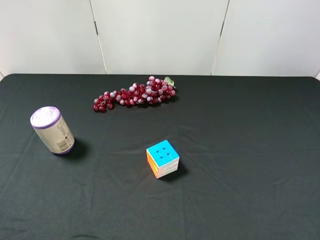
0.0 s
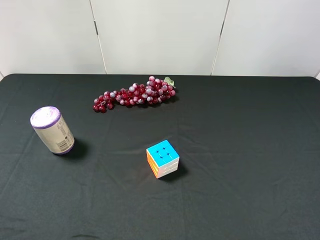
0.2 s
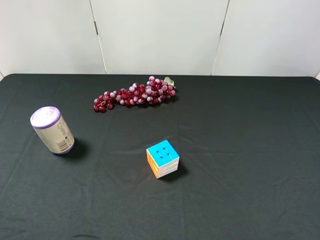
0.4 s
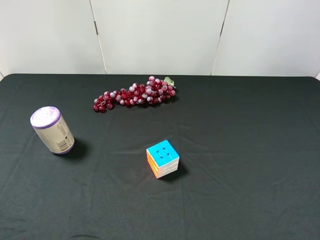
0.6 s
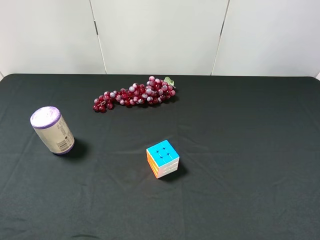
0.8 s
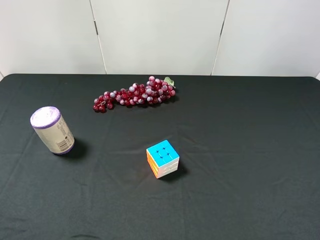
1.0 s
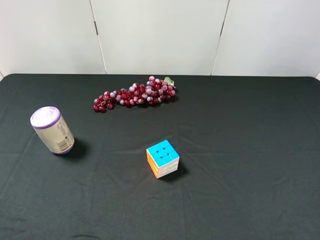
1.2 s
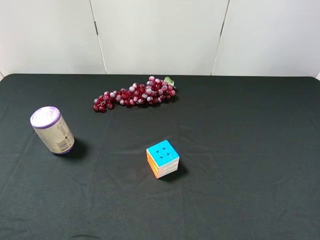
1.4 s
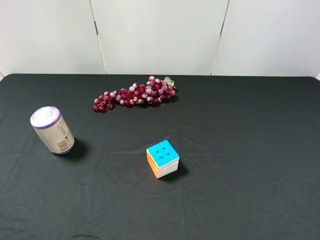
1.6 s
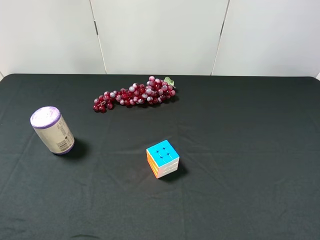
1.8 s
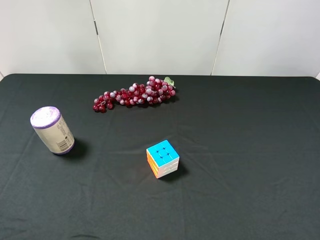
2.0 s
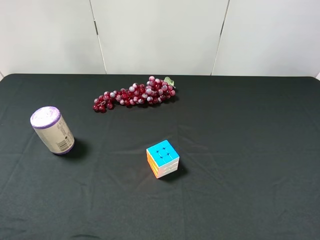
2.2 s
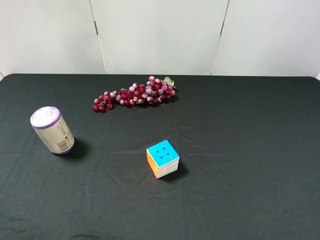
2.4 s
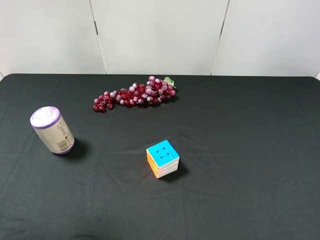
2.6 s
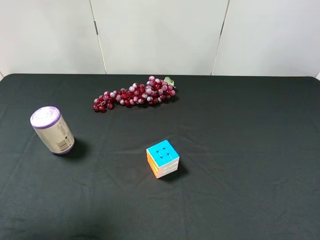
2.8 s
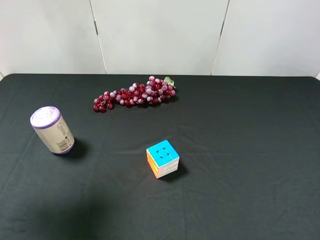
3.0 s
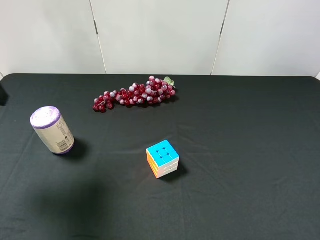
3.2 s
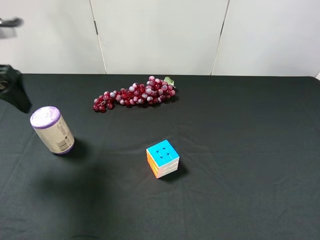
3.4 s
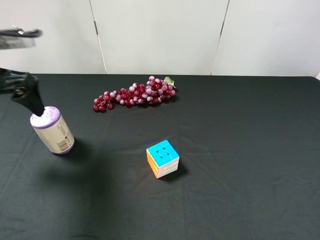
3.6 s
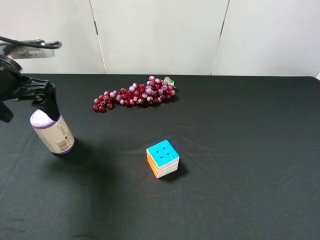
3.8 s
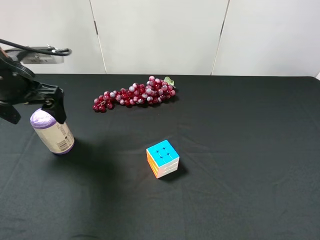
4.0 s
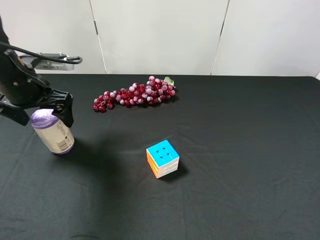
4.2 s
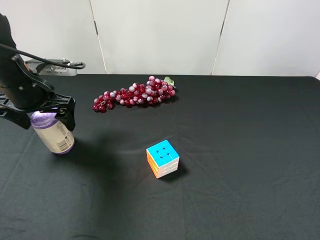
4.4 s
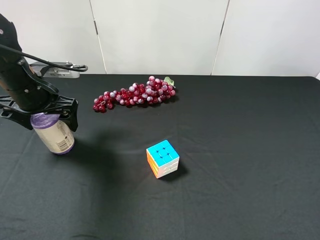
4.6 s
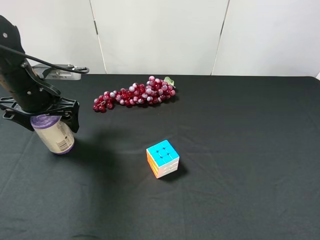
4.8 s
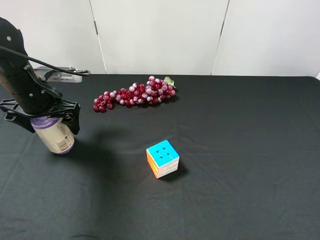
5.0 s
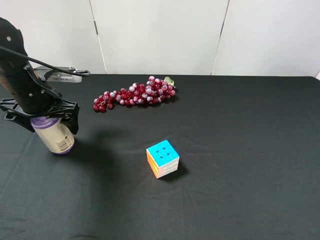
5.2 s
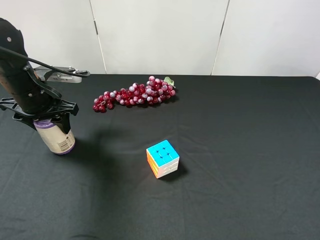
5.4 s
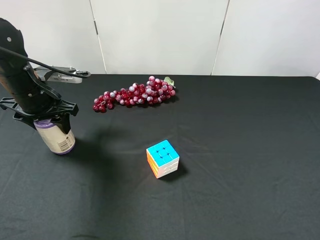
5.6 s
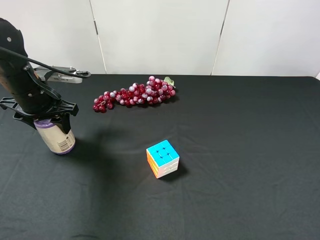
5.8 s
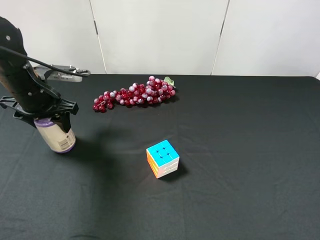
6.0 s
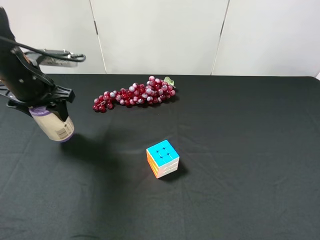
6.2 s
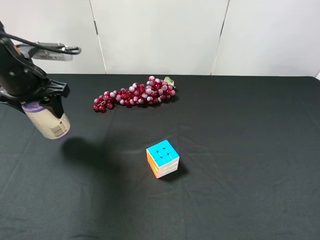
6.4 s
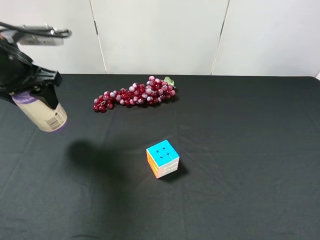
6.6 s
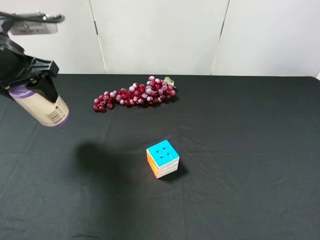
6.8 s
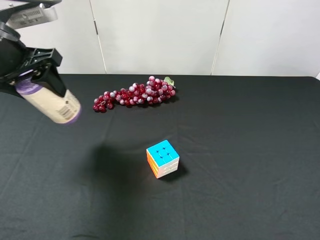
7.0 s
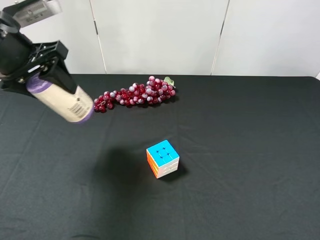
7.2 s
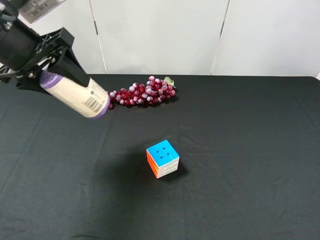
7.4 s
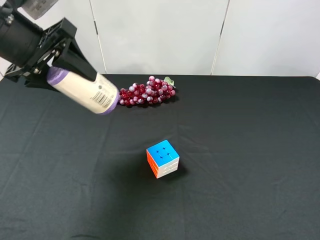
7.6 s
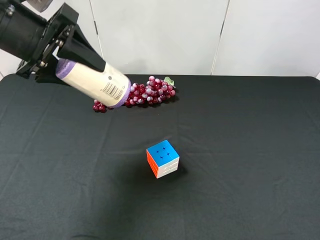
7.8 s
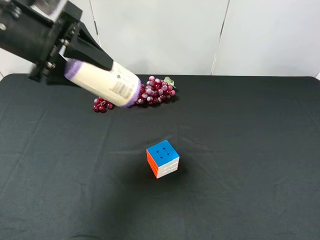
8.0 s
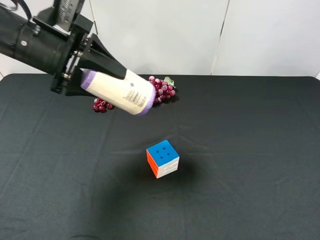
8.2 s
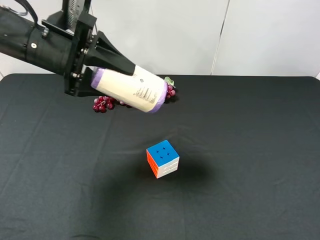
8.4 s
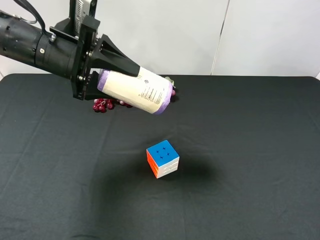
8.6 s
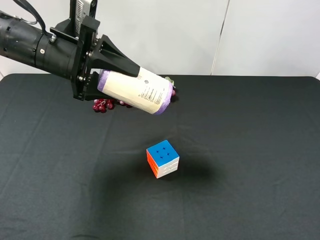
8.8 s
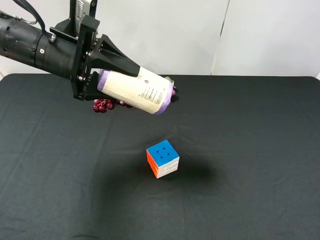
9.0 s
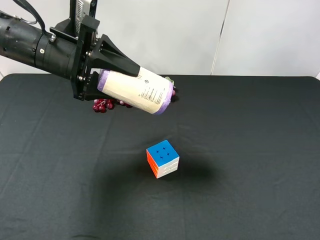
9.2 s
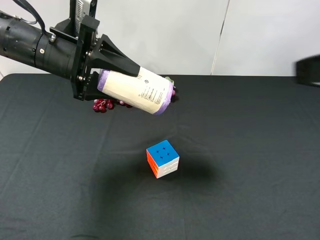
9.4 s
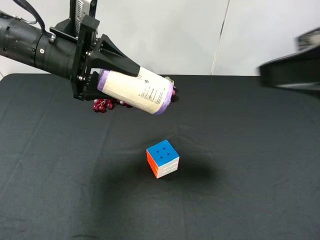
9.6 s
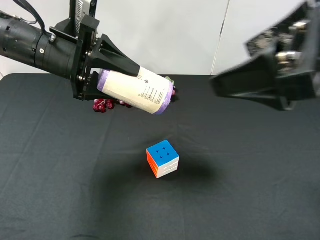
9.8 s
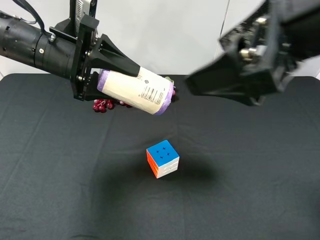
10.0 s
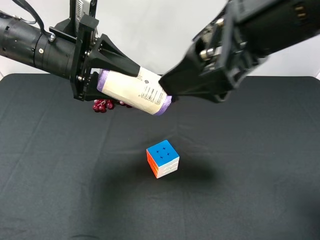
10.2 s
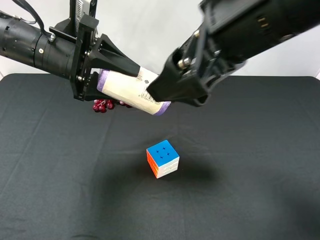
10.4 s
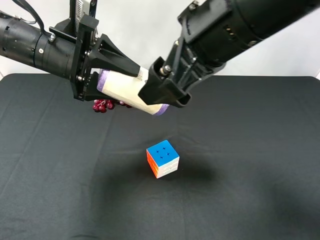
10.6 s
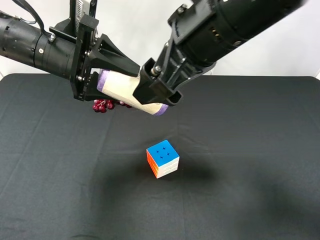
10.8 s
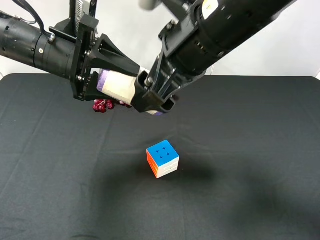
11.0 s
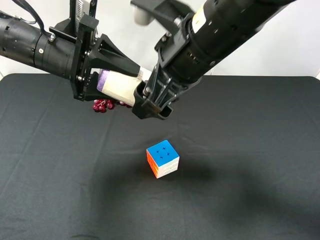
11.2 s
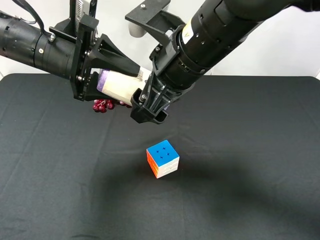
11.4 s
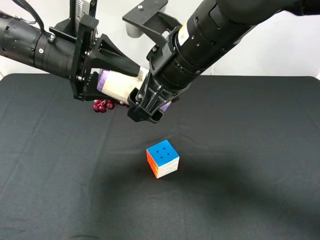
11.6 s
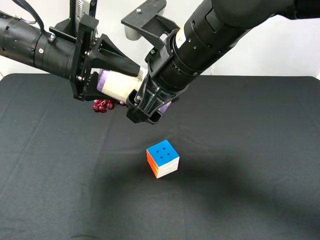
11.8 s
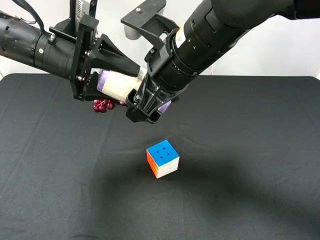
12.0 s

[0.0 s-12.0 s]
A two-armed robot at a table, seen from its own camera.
Task of the whole recording: use the left gripper to pick up the item and transfer it from the left gripper to the right gripper.
0.0 to 1.6 s: Both grippers stay put.
1.6 to 3.0 s: The left gripper goes about 20 cm forward.
3.0 to 4.4 s: The left gripper heads downward, forward and to the right, covering approximately 20 cm.
4.4 to 6.0 s: The left gripper closes its fingers.
6.0 to 7.6 s: The left gripper travels upward by roughly 10 cm.
7.6 to 9.0 s: The right gripper goes some 10 cm upward and forward. Meanwhile the left gripper goes approximately 5 cm downward.
9.0 to 10.4 s: The right gripper moves to the left and forward, roughly 20 cm.
10.4 to 12.0 s: The right gripper is displaced downward, to the left and forward by about 10 cm.

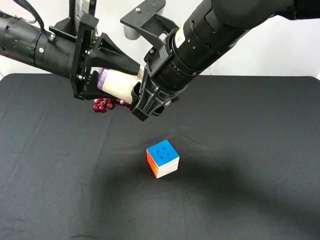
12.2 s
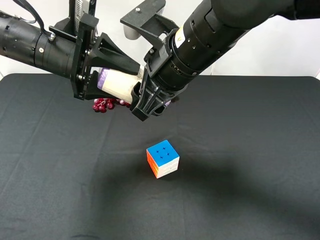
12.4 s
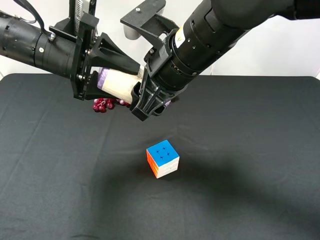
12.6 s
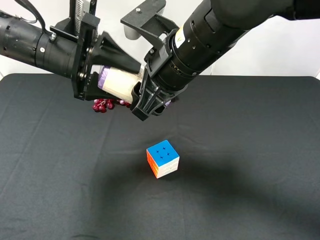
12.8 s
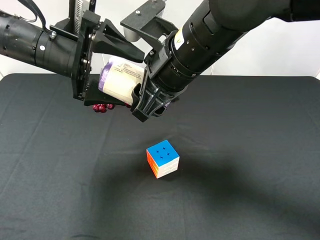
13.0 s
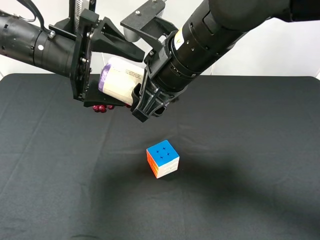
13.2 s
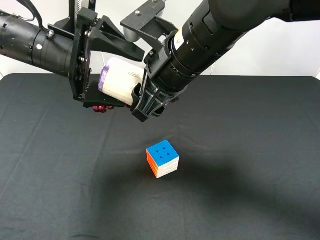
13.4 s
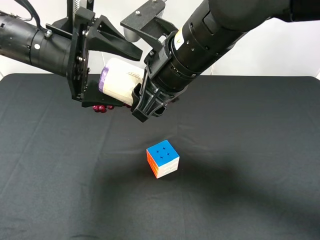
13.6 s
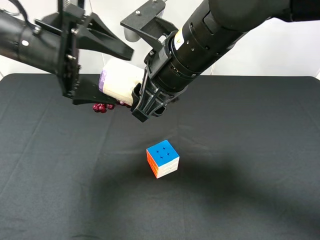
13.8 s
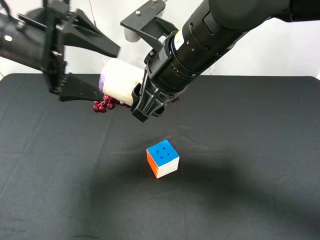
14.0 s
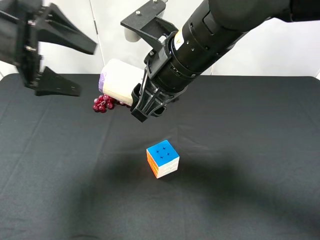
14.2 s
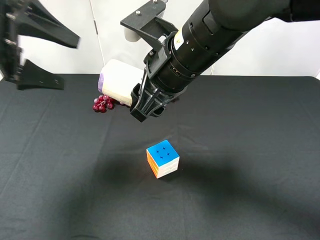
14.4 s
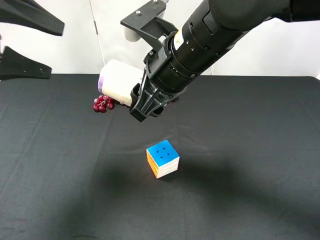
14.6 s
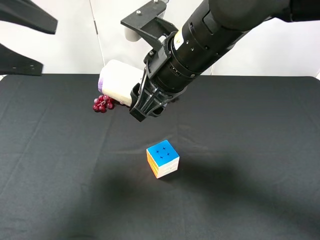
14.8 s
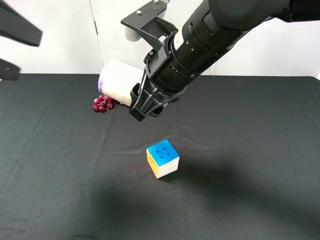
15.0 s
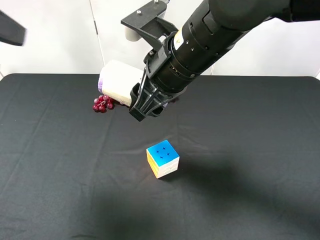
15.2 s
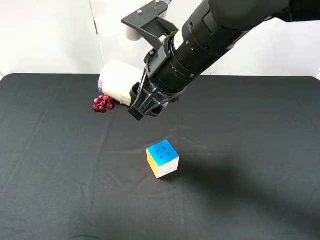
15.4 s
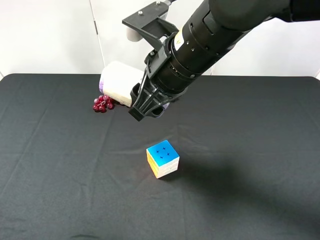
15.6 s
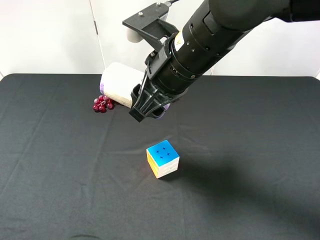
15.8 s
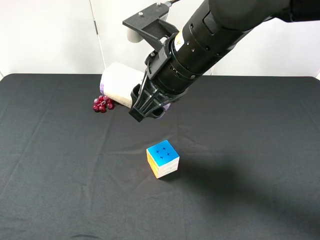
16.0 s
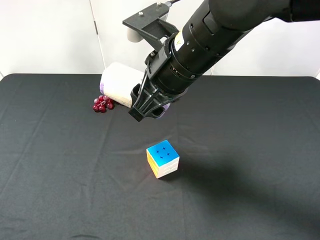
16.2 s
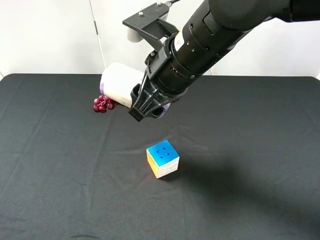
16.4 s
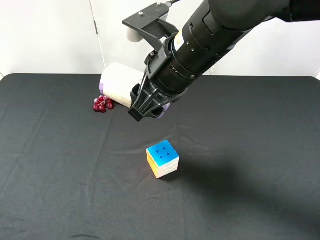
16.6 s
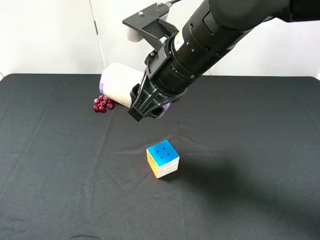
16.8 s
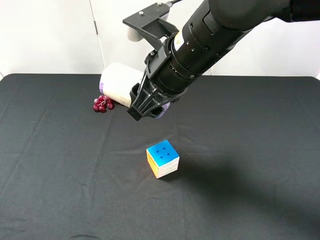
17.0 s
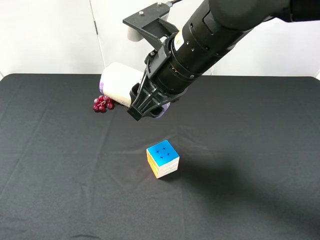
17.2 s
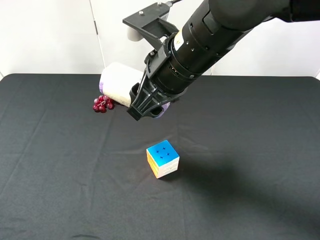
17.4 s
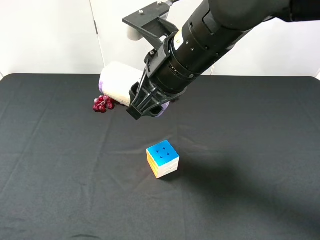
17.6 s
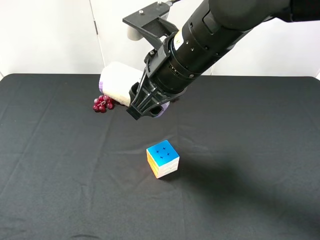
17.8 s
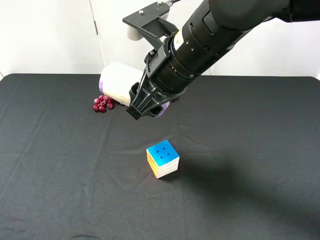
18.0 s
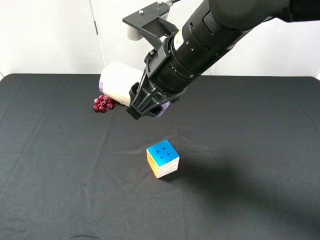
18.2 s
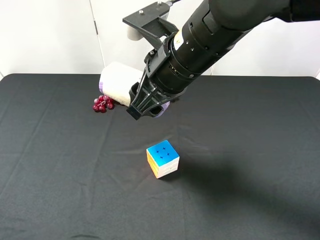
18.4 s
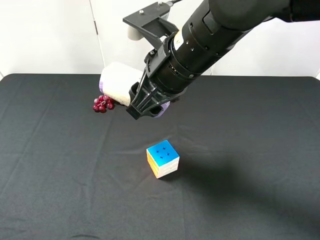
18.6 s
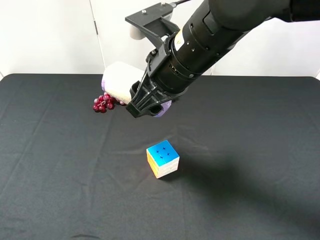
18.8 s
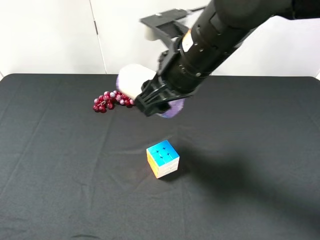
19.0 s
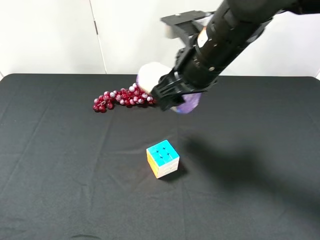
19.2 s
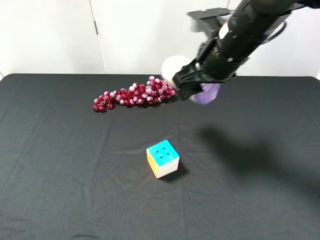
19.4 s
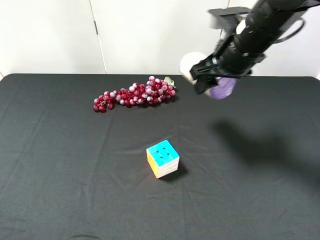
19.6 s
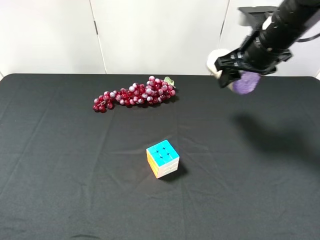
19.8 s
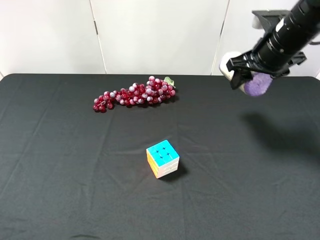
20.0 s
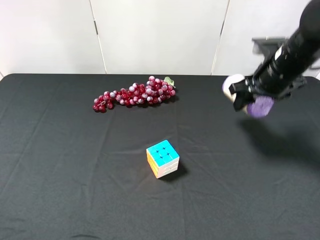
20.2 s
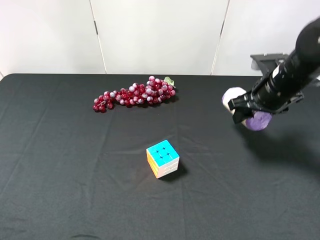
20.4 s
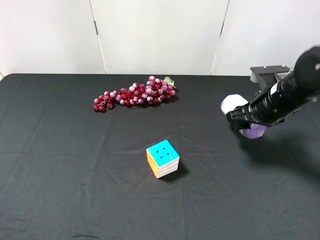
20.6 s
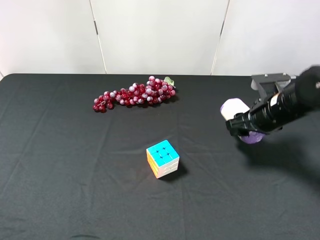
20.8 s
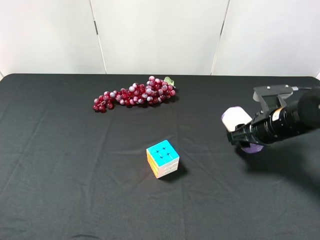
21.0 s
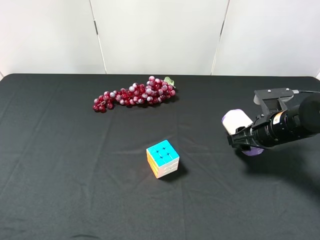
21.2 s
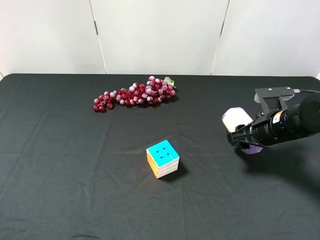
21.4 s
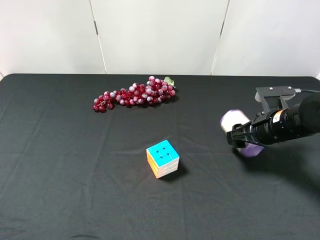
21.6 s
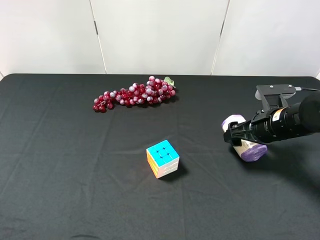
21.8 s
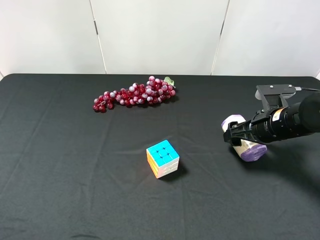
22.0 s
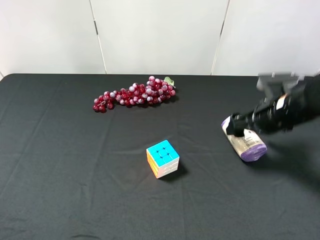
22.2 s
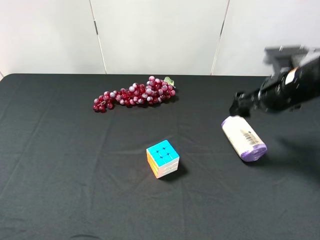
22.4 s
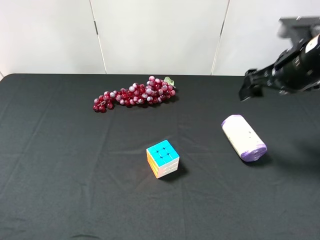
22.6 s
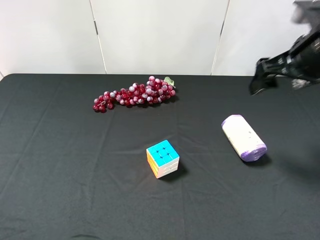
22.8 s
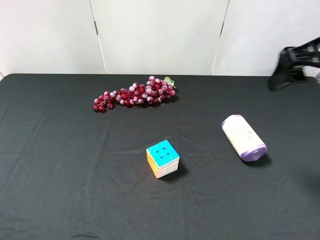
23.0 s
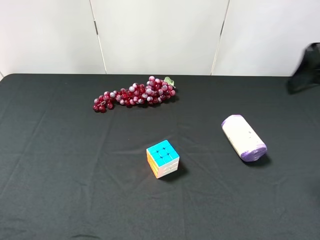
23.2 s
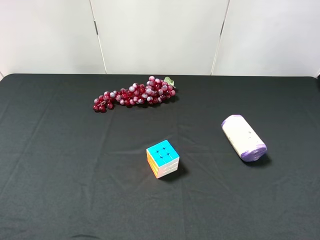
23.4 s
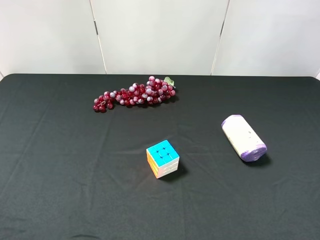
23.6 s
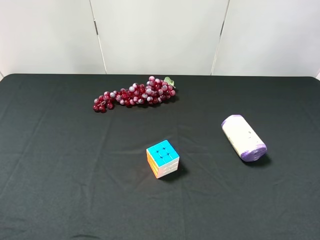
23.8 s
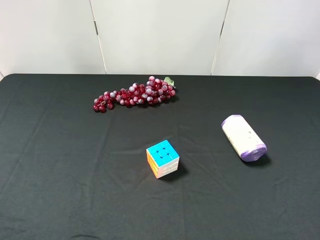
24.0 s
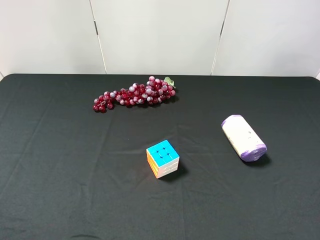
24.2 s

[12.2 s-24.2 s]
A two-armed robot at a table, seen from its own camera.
Task of the whole recording: use the left gripper to pick up the item and transfer it from the left gripper to the right gripper.
12.2 to 13.8 s: The left gripper opens.
13.8 to 15.2 s: The left gripper shifts roughly 20 cm upward, backward and to the left.
15.2 to 16.6 s: The left gripper goes approximately 15 cm backward.
16.6 to 18.2 s: The grippers move only a little.
18.2 to 19.8 s: The right gripper shifts roughly 20 cm to the right and forward.
19.8 to 21.2 s: The right gripper heads downward and backward, covering about 15 cm.
21.2 to 22.6 s: The right gripper goes some 15 cm upward, and opens up.
22.6 to 24.2 s: The right gripper shifts about 30 cm backward.
